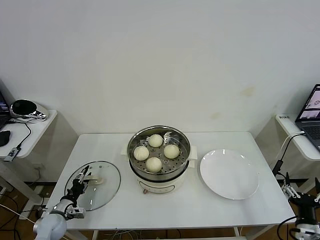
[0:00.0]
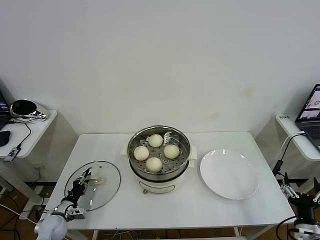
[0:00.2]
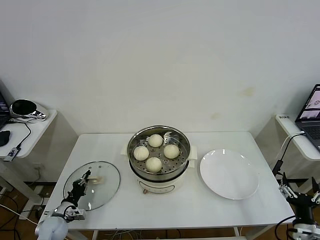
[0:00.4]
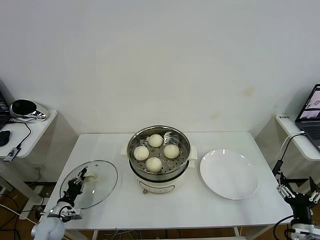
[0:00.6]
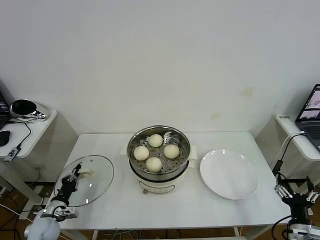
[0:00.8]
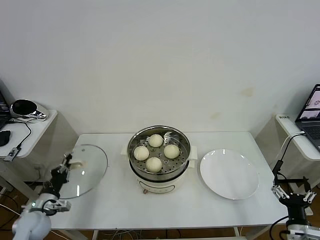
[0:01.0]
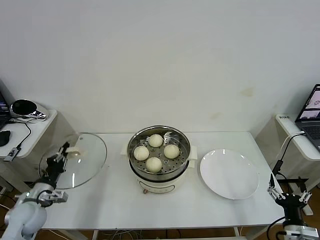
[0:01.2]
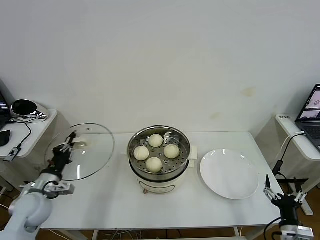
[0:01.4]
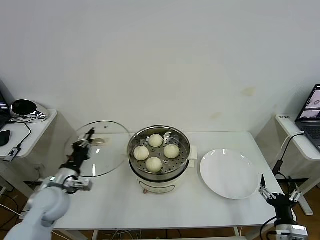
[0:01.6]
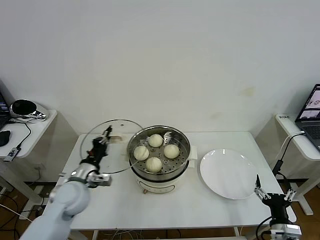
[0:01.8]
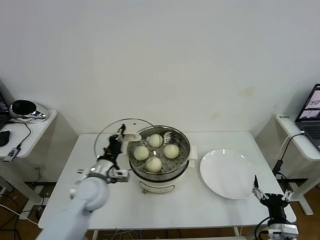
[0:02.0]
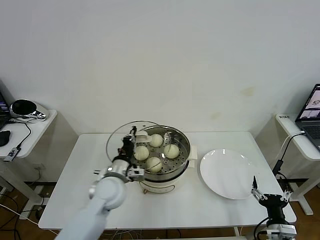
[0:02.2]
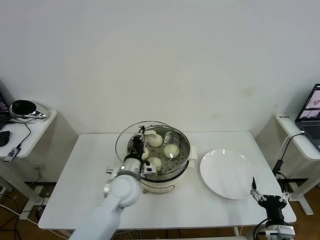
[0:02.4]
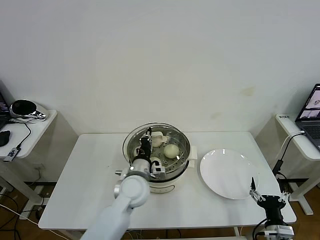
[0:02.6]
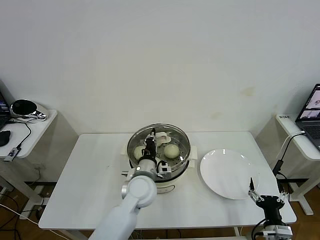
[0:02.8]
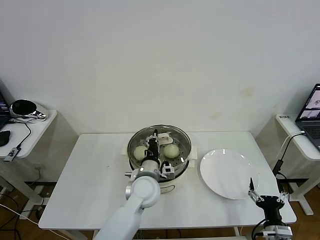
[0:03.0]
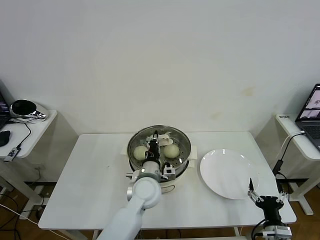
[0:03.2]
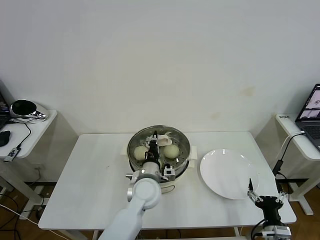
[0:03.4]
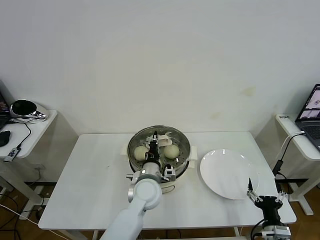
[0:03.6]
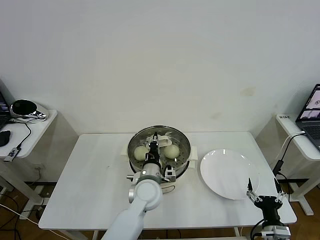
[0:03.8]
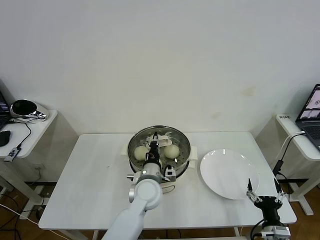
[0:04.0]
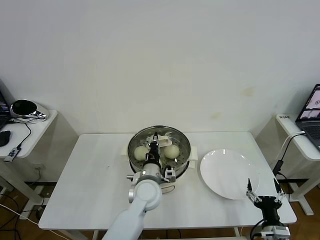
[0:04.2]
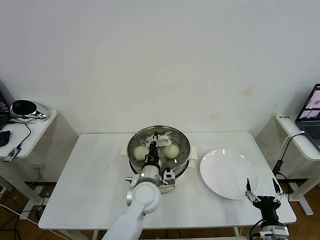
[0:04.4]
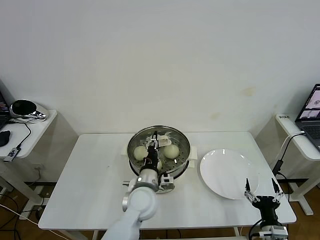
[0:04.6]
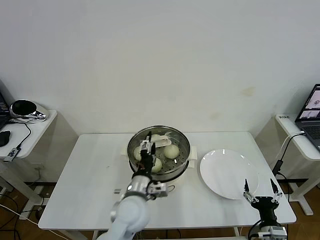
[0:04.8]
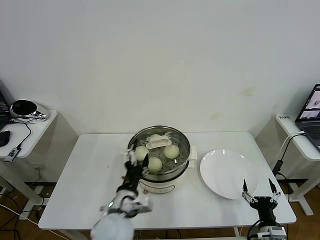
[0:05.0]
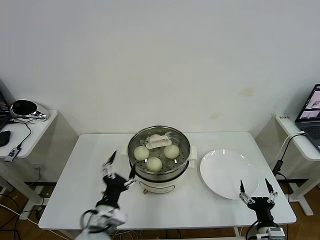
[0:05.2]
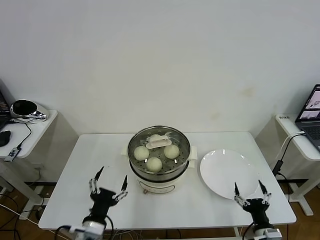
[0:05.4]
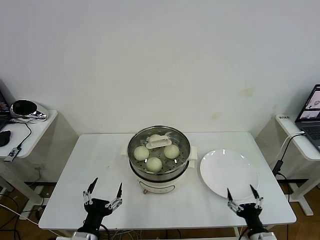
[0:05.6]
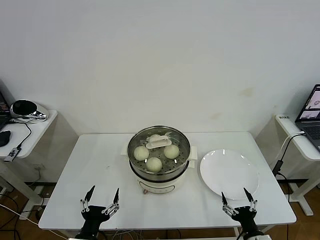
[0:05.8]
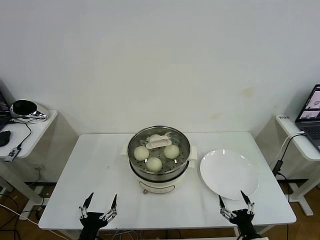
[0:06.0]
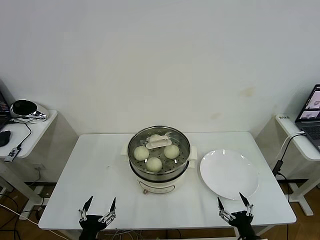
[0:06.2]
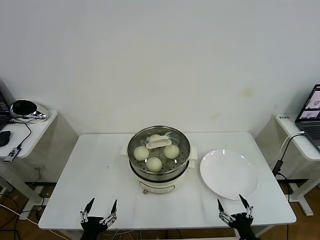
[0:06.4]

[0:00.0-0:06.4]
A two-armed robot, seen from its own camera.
Task of the whole recording: take steamed baozi put them in steamer then cover it.
Step, 0:00.6 to 0:04.8: Place the pot lid on the steamer with left gripper.
0:00.0 to 0:01.6: The left gripper travels upward and to the right by about 20 cm, and closes up.
0:01.6 to 0:03.2: The left gripper moves to the right, approximately 30 cm.
0:03.2 to 0:04.8: The left gripper moves backward, roughly 5 cm, and opens up.
0:04.8 to 0:06.4: The right gripper moves roughly 5 cm. The left gripper travels backward, to the left and downward by approximately 25 cm.

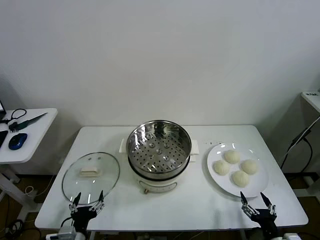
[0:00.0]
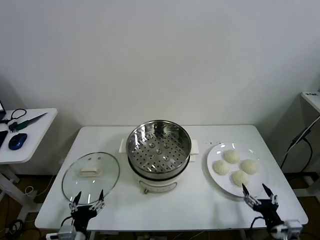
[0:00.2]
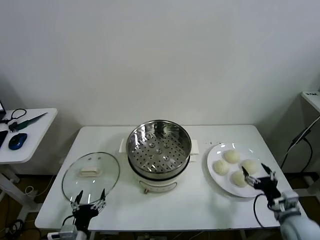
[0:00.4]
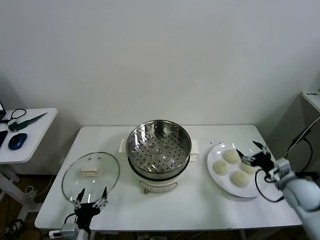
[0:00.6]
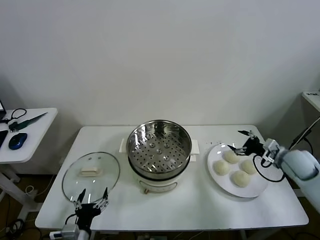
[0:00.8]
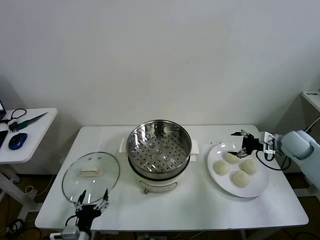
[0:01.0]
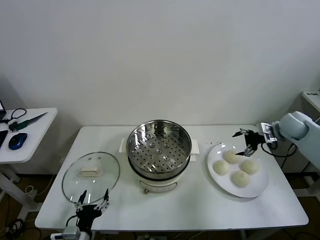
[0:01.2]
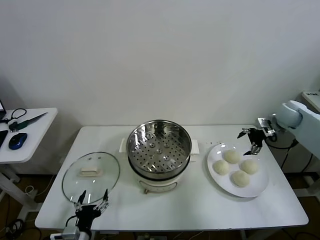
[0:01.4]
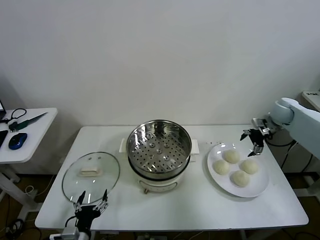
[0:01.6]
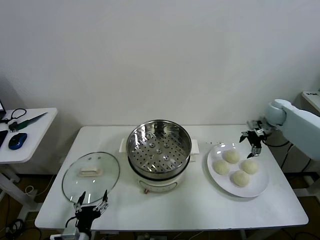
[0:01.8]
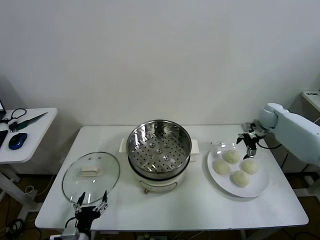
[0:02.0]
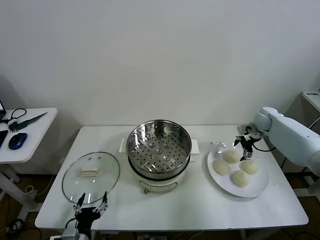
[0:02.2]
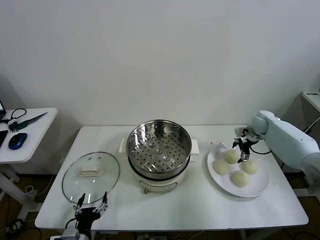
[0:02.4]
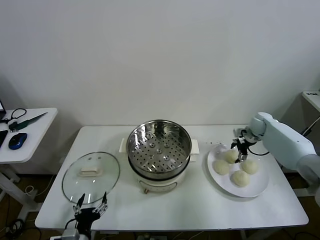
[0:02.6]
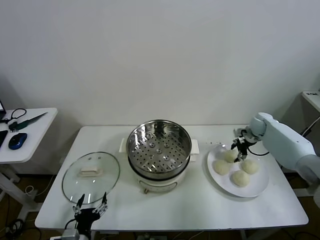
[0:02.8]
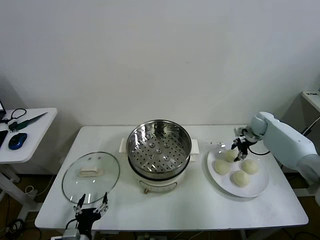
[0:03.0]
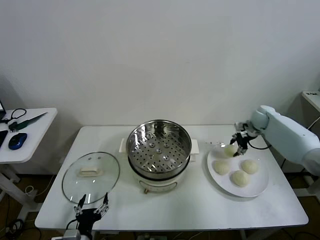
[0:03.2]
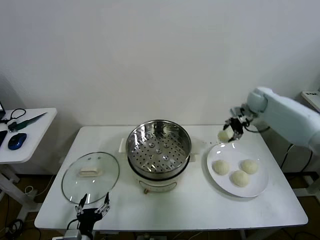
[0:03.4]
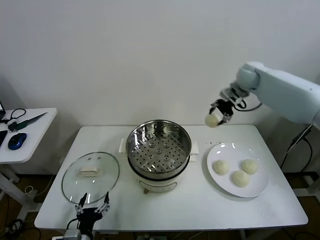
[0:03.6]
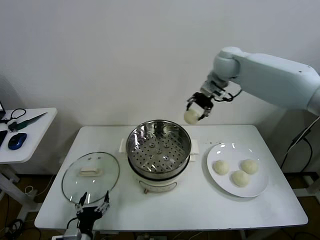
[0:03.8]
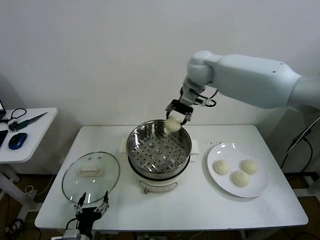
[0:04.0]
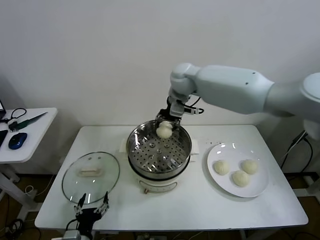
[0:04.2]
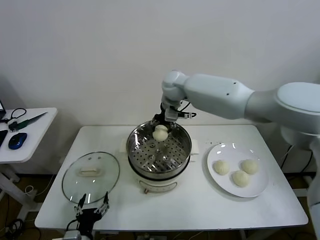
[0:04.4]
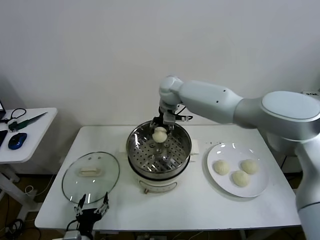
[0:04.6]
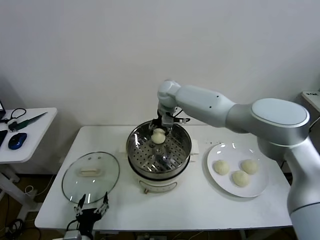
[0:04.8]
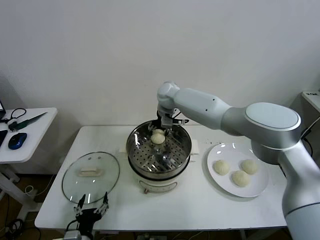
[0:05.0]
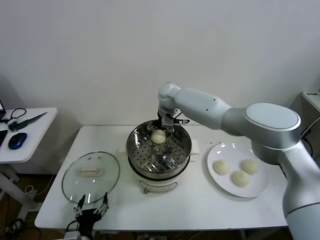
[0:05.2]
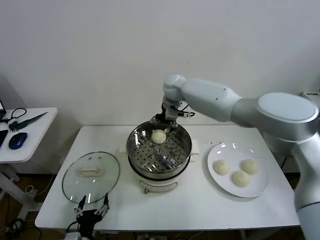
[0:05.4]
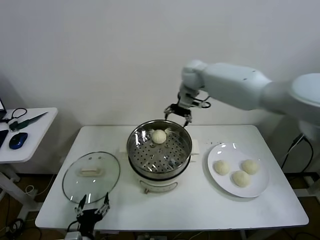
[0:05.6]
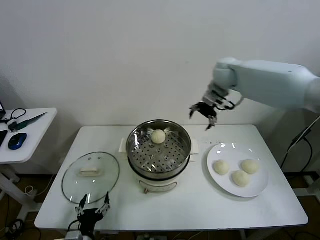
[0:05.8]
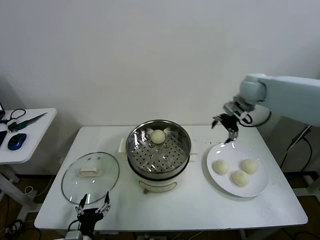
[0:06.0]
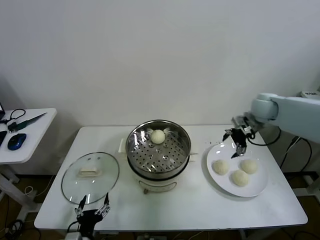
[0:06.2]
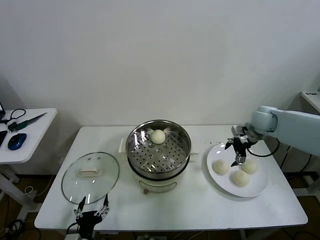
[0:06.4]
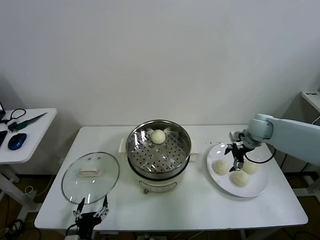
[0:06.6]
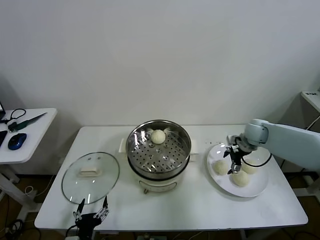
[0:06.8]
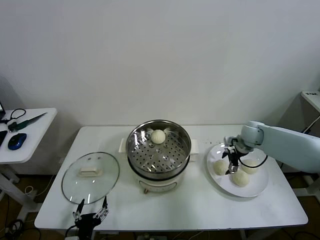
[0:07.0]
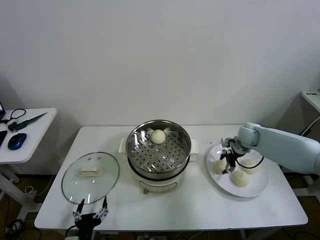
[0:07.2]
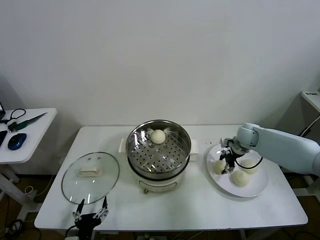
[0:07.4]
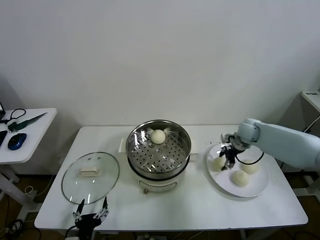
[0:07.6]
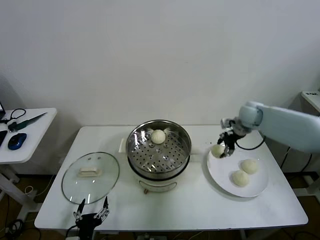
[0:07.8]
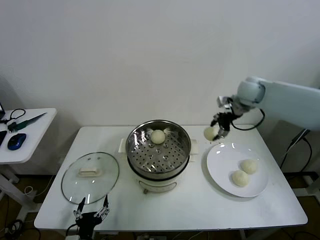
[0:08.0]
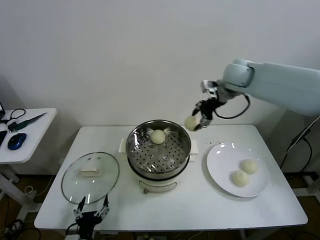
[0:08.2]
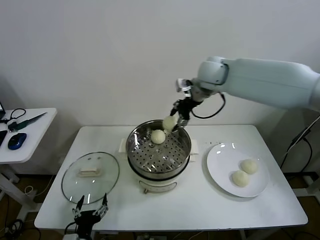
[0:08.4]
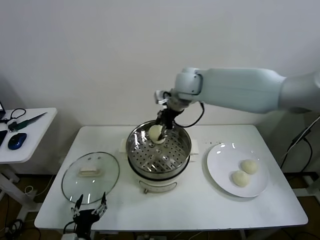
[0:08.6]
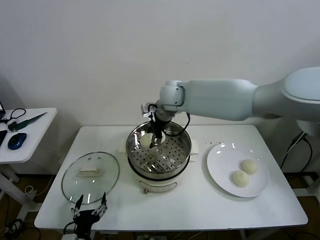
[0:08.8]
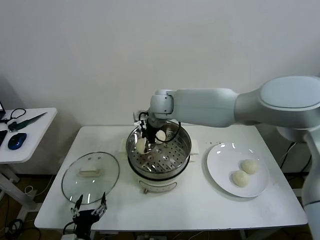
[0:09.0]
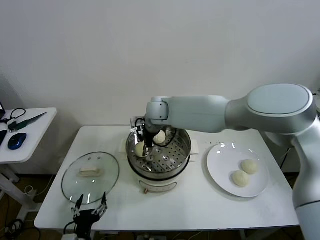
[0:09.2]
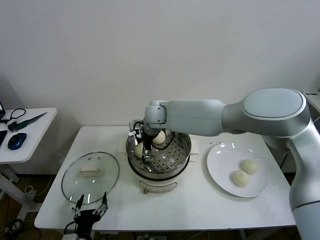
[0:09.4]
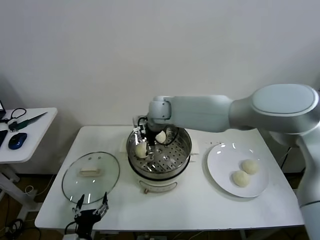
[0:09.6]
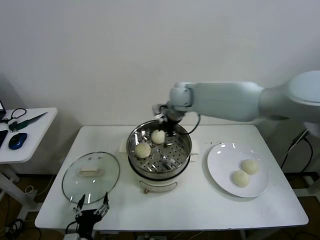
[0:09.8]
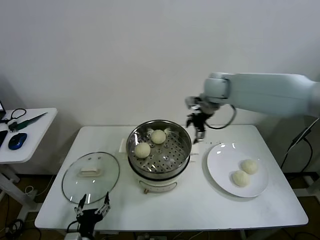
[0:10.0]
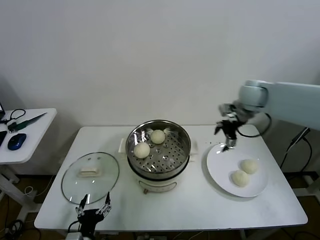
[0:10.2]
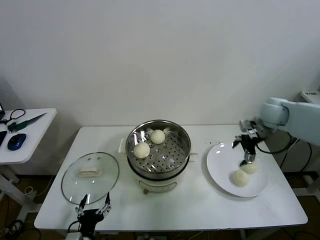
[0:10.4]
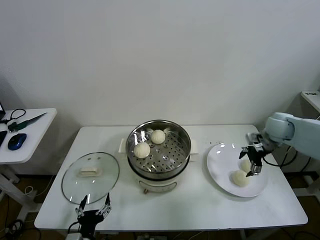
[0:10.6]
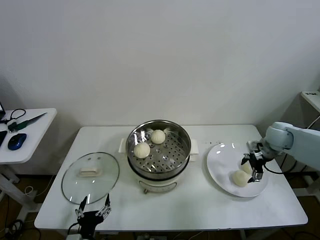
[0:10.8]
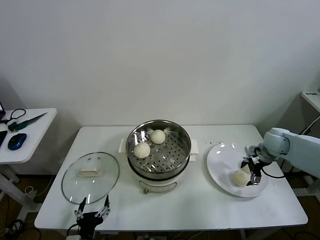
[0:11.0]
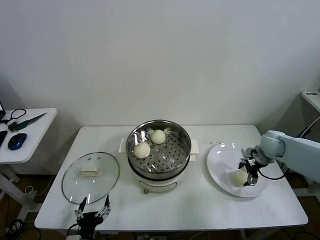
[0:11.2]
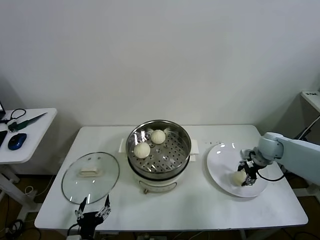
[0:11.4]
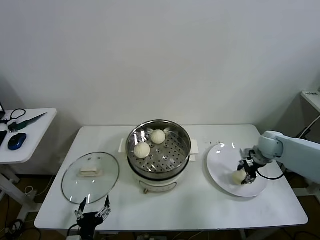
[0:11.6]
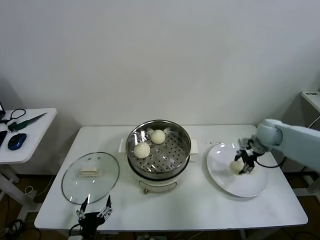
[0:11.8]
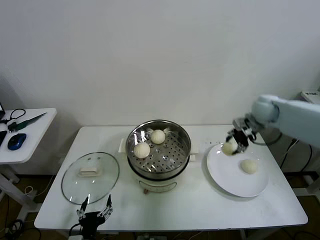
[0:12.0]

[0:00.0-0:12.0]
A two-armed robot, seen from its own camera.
Task of the whole recording: take steamed baozi put them in steamer then cover it.
Step, 0:00.0 to 0:02.8: Grasp the baozi in the plate with right gripper.
Step, 0:03.0 to 0:05.2: Place the baozi on the steamer with right gripper.
Step, 0:05.6 to 0:07.4: Grasp the baozi in the plate with right gripper.
Step, 0:07.6 to 0:09.4: Place the baozi on the steamer with right gripper.
Step, 0:09.8 to 0:11.4: Grasp the baozi in the plate with right gripper.
0:01.6 to 0:03.0: The right gripper is displaced downward by roughly 10 cm, and closes its fingers.
0:03.0 to 0:04.4: The right gripper travels to the left and upward by approximately 40 cm.
0:04.4 to 0:06.0: The right gripper goes some 30 cm to the right, and opens up.
0:06.0 to 0:07.6: The right gripper heads downward, covering about 15 cm, and closes its fingers.
0:07.6 to 0:09.0: The right gripper moves to the left, roughly 35 cm.
0:09.0 to 0:10.4: The right gripper is displaced to the right by some 40 cm, and opens up.
0:10.4 to 0:12.0: The right gripper reaches about 10 cm downward, then returns, and closes up.

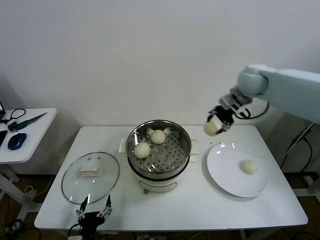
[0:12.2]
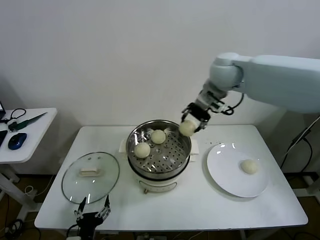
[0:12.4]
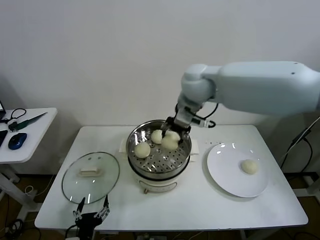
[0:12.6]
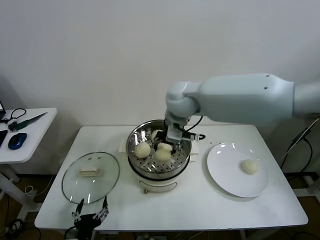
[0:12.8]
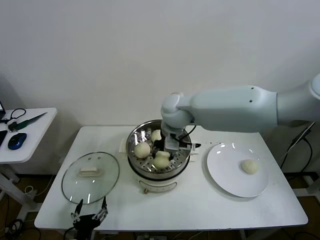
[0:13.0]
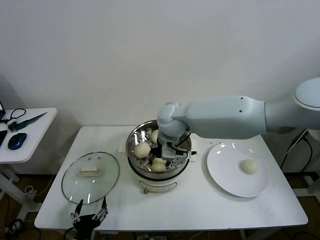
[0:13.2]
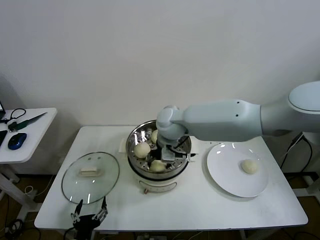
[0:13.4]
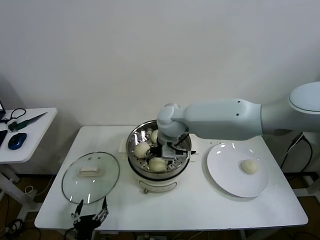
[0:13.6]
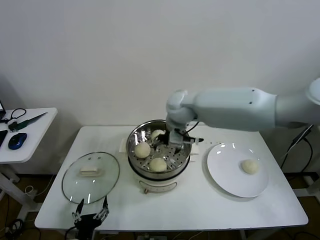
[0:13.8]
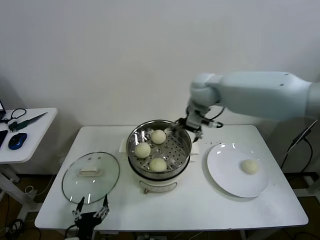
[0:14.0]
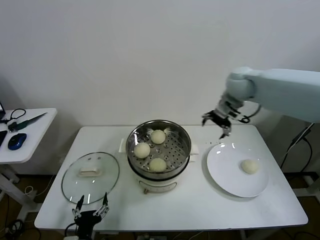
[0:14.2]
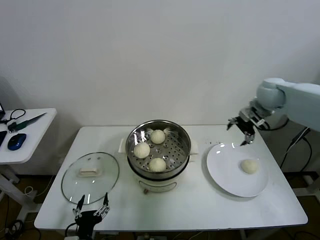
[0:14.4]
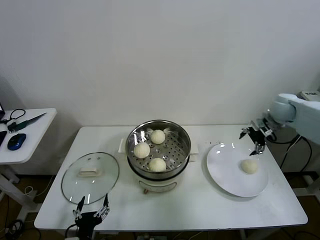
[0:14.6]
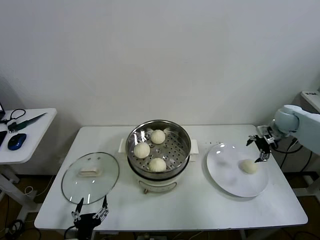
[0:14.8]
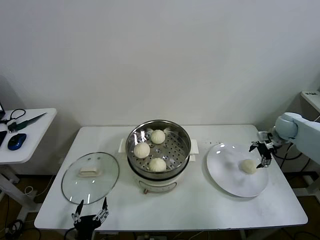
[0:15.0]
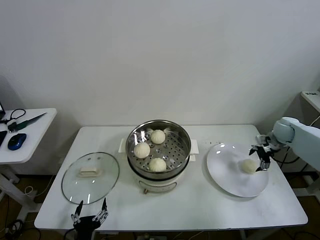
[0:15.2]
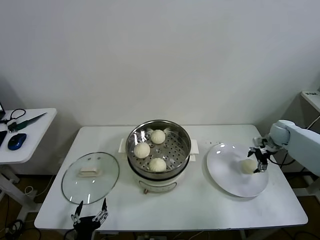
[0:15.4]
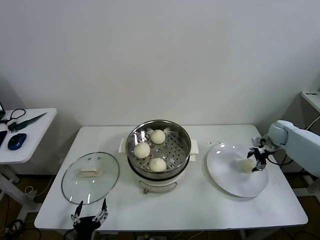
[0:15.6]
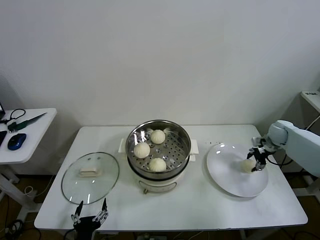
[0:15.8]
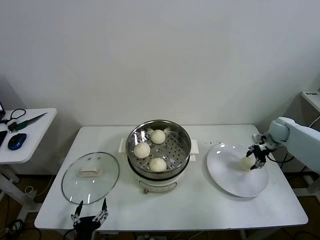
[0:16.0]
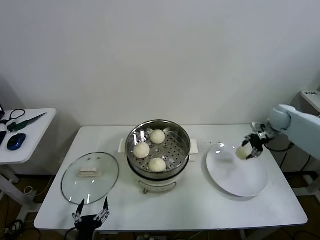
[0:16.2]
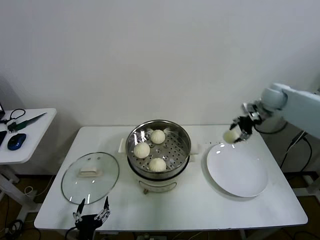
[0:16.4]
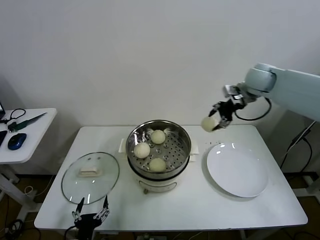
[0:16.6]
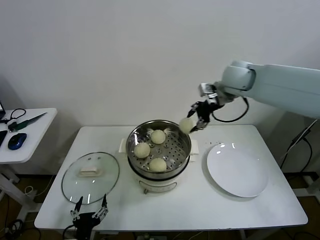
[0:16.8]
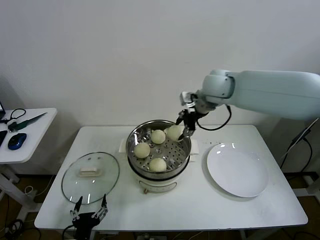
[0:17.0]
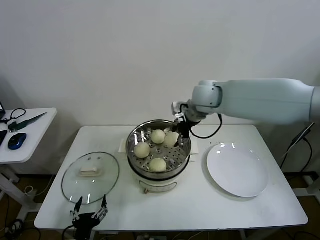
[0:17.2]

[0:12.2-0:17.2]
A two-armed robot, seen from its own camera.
Task of the whole recording: take steamed baozi put them in steamer then cover it.
Step, 0:12.2 to 0:13.6: Place the baozi on the steamer with right gripper.
Step, 0:13.8 to 0:15.8: Grasp the baozi in the plate with right gripper.
0:12.2 to 0:13.8: The right gripper shifts approximately 20 cm to the left, and opens.
0:13.8 to 0:15.6: The right gripper travels to the right and downward by some 40 cm, and closes up.
0:15.6 to 0:17.2: The right gripper goes approximately 40 cm to the left and upward, and closes.
